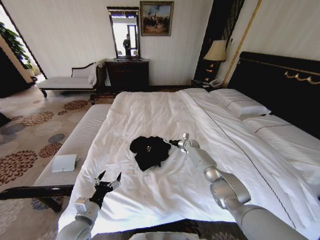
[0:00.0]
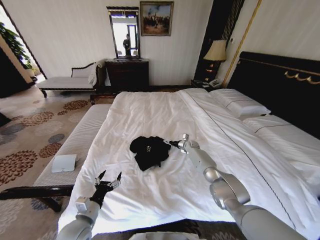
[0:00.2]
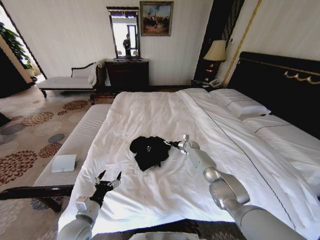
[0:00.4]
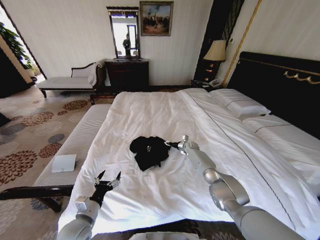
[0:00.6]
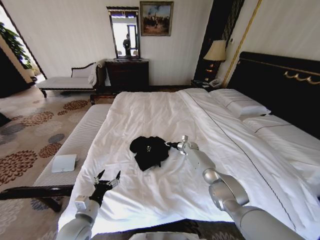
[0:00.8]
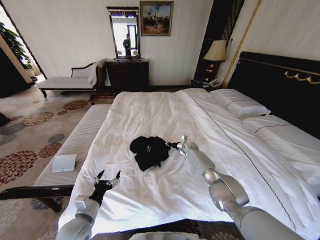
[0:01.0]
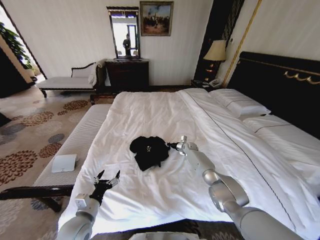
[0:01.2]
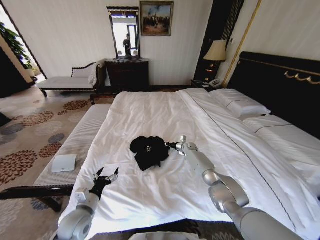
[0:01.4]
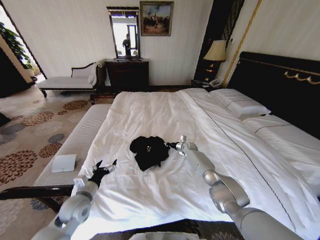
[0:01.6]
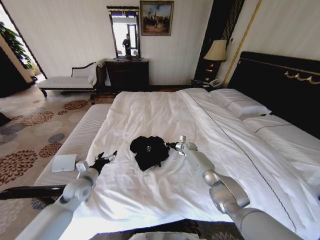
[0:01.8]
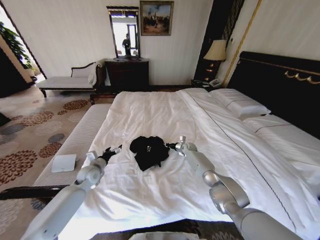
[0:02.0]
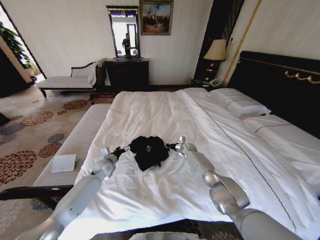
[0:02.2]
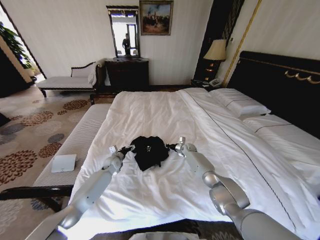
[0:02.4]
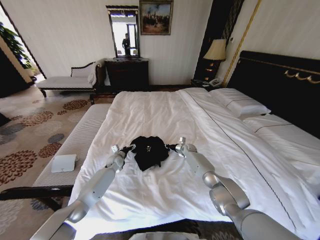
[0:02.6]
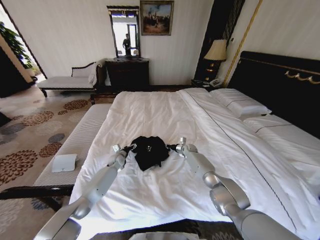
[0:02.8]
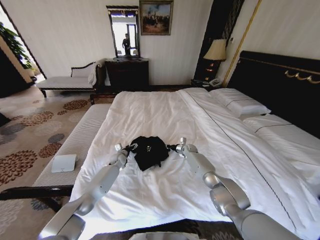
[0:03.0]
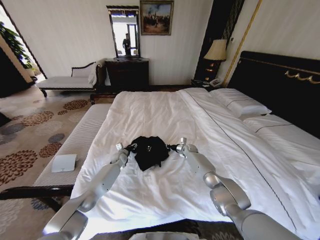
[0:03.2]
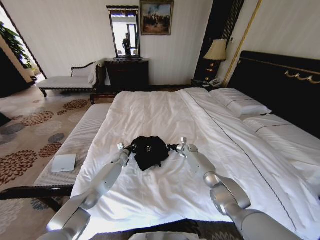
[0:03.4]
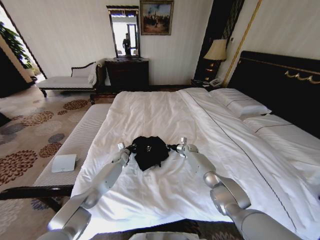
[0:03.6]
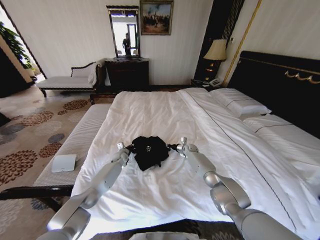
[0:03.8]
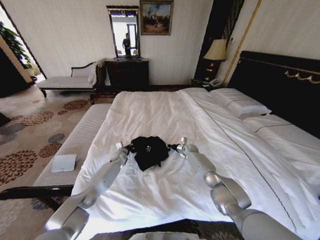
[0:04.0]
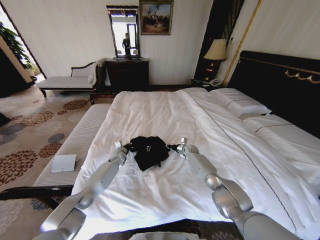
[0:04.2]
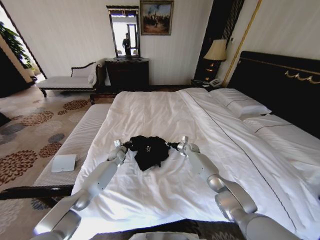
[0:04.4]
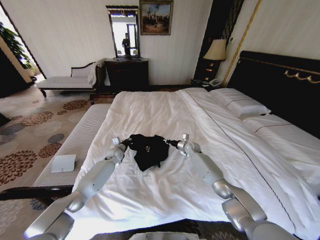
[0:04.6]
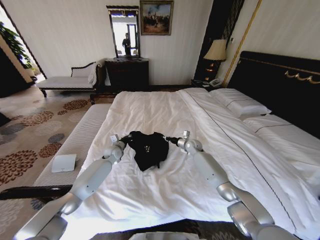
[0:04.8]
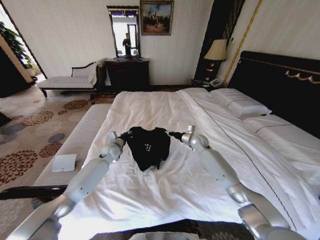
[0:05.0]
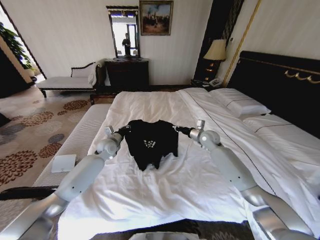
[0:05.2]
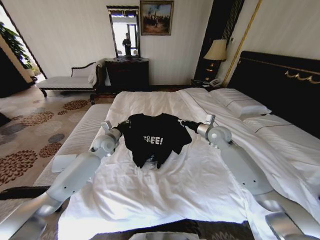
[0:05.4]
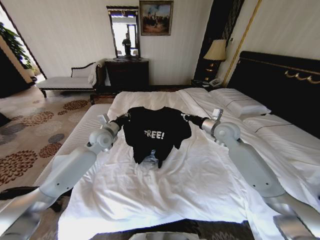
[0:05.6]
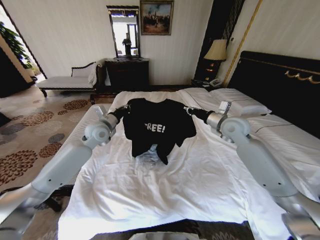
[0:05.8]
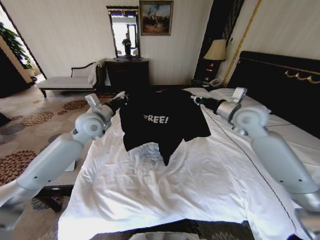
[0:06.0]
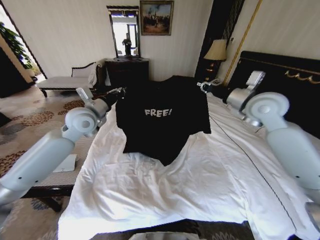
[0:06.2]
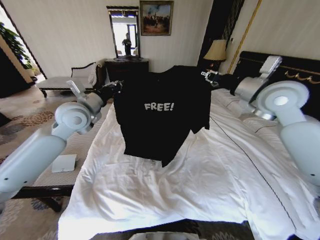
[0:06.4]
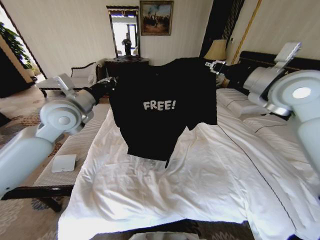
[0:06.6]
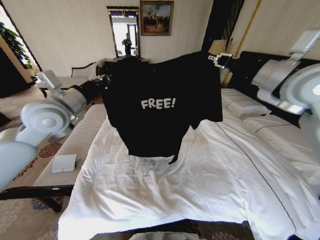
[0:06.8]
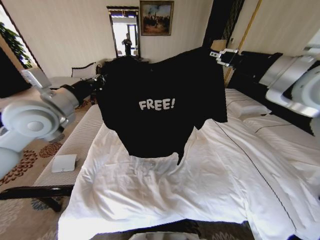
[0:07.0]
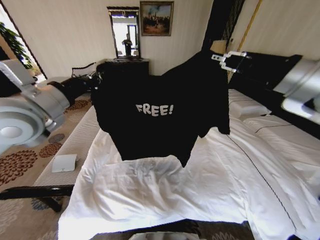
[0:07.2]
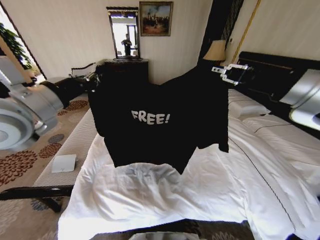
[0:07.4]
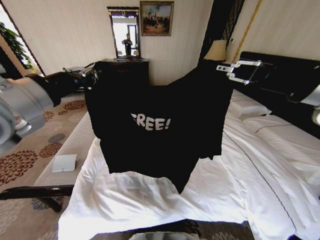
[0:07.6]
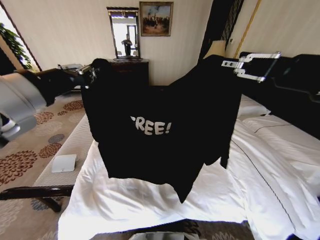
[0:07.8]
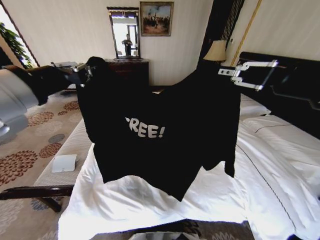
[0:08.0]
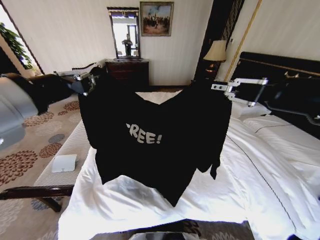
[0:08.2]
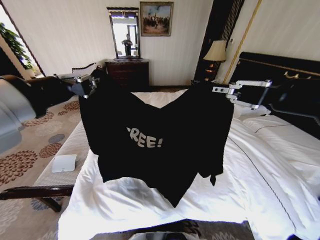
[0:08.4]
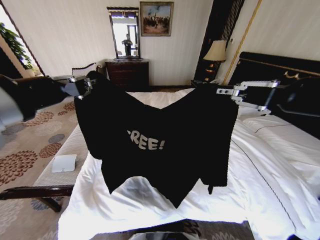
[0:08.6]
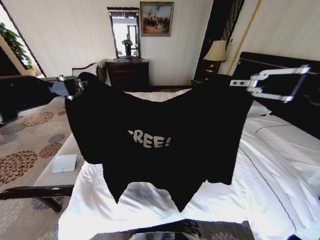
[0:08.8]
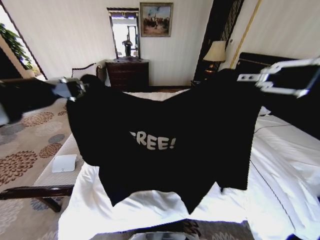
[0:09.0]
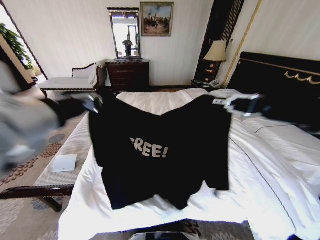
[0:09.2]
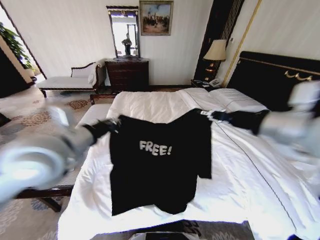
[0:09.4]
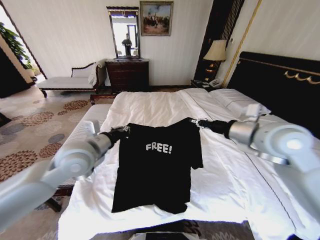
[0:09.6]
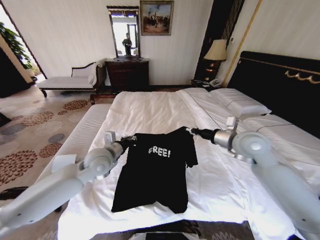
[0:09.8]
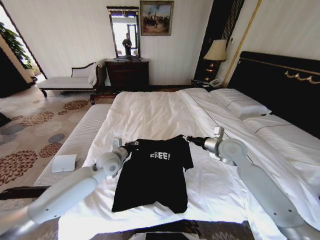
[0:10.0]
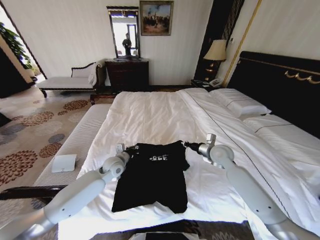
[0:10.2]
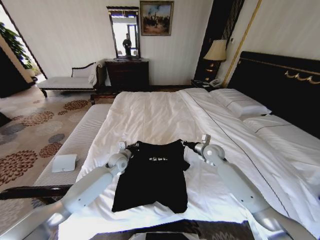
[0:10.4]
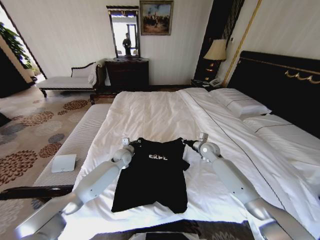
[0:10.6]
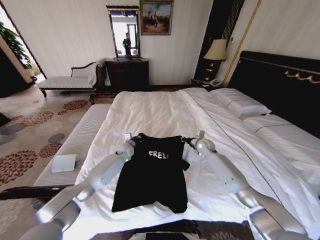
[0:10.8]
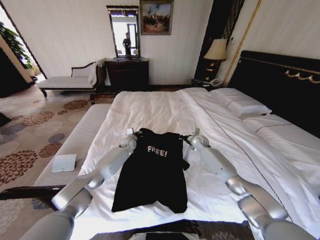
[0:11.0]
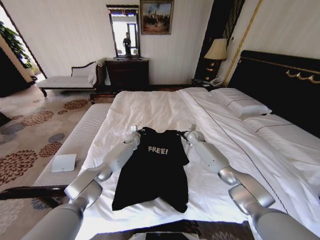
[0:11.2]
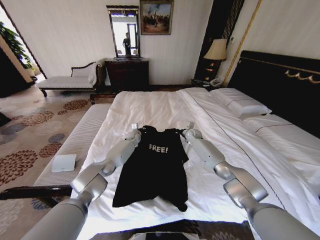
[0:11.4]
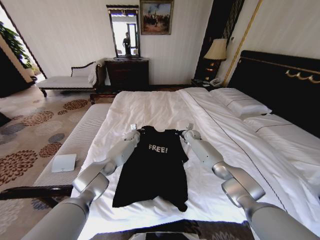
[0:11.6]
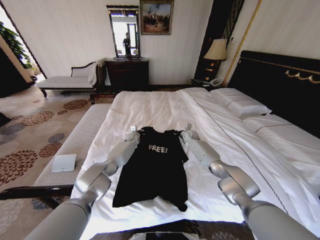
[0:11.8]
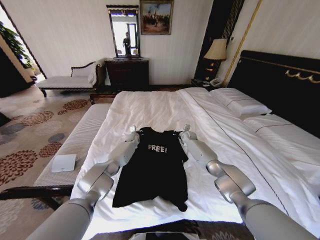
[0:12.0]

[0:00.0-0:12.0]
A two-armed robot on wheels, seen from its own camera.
Task of the whole recording: Fold the clothes on the bed.
0:00.0 to 0:01.6: The right gripper closes, while the left gripper is displaced forward by roughly 10 cm.
0:01.6 to 0:03.0: The left gripper moves forward, roughly 30 cm.
0:03.0 to 0:04.4: The left gripper closes up.
0:04.4 to 0:06.0: The right gripper travels upward and backward by some 40 cm; the left gripper shifts some 30 cm upward.
0:06.0 to 0:07.6: The grippers both shift backward and upward by about 25 cm.
0:07.6 to 0:09.0: The left gripper shifts some 10 cm backward; the right gripper shifts roughly 10 cm backward and upward.
0:09.0 to 0:10.4: The grippers both shift downward and forward by some 50 cm.
0:10.4 to 0:12.0: Both grippers move forward, approximately 20 cm.

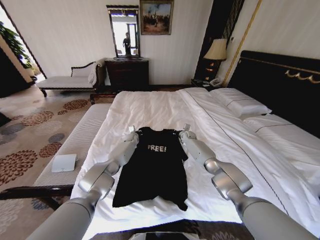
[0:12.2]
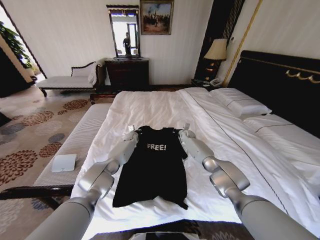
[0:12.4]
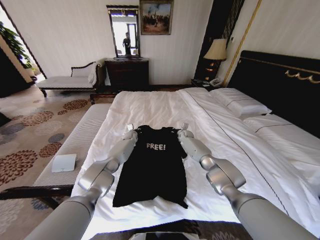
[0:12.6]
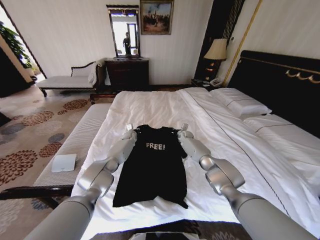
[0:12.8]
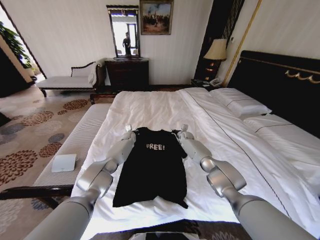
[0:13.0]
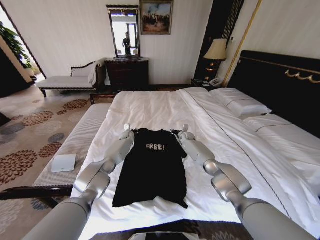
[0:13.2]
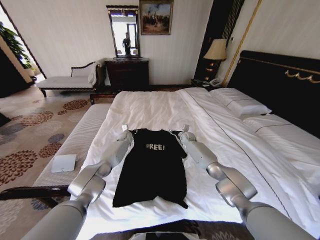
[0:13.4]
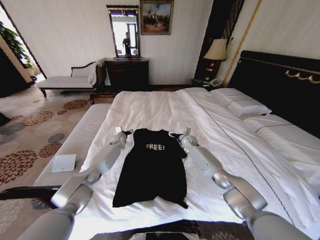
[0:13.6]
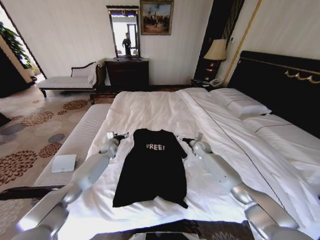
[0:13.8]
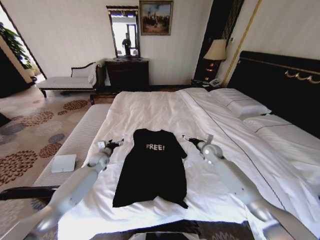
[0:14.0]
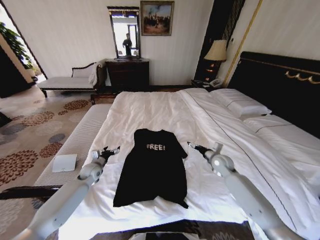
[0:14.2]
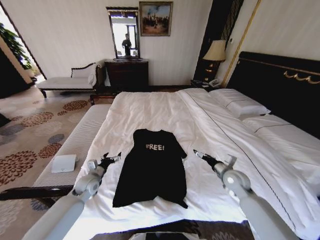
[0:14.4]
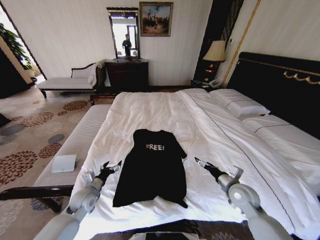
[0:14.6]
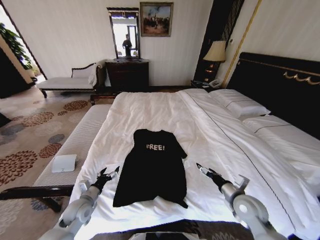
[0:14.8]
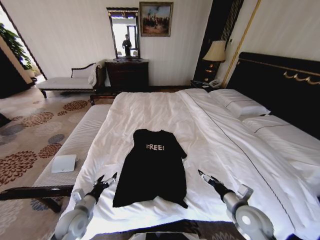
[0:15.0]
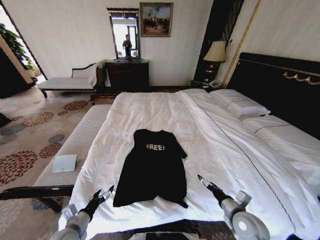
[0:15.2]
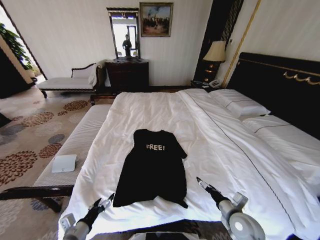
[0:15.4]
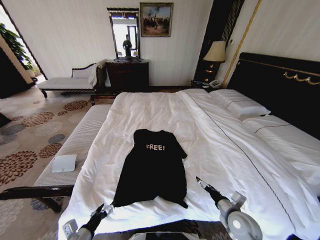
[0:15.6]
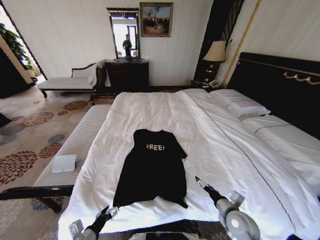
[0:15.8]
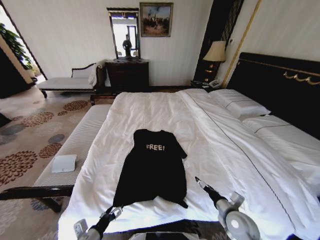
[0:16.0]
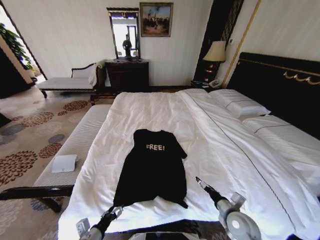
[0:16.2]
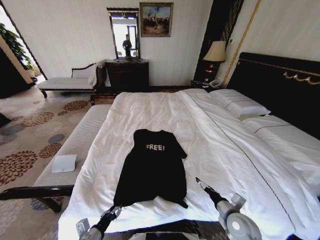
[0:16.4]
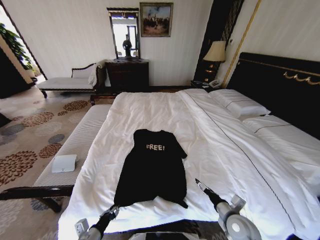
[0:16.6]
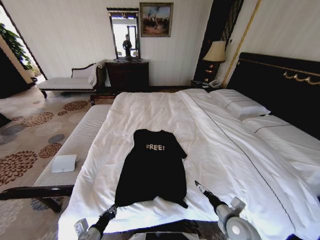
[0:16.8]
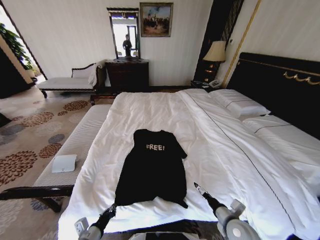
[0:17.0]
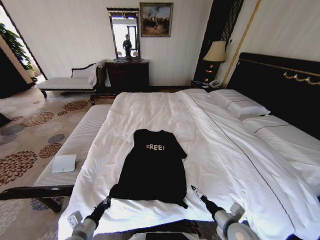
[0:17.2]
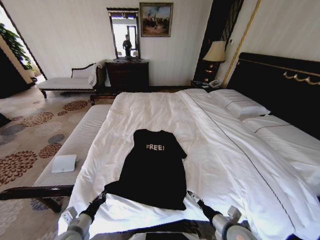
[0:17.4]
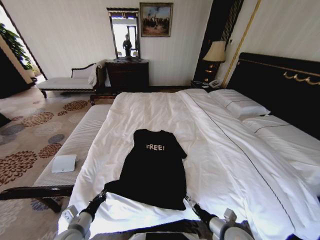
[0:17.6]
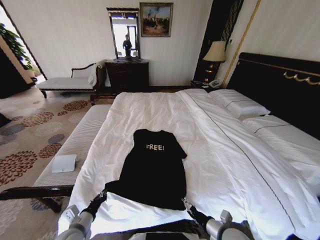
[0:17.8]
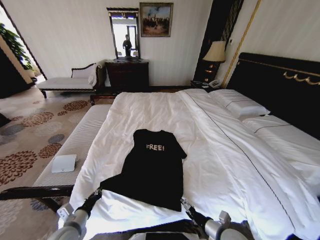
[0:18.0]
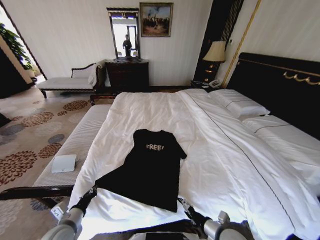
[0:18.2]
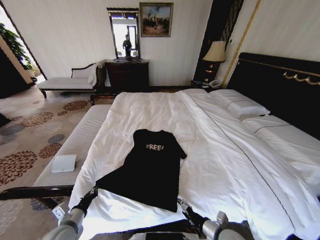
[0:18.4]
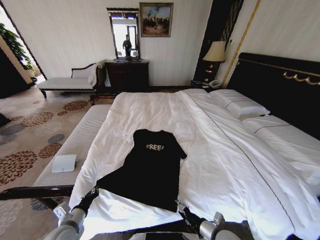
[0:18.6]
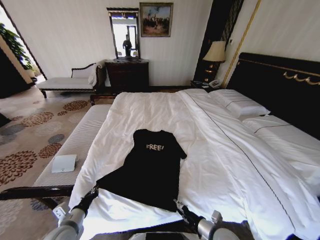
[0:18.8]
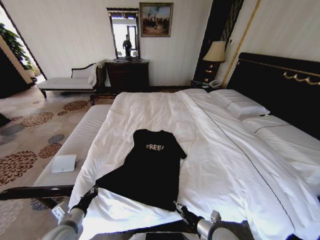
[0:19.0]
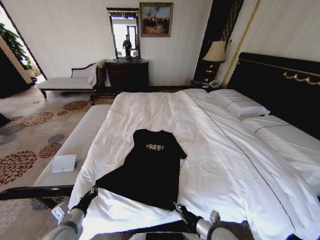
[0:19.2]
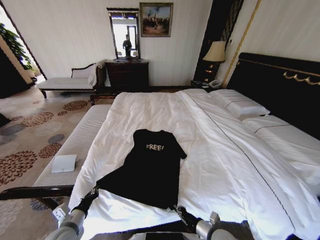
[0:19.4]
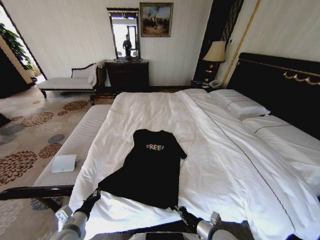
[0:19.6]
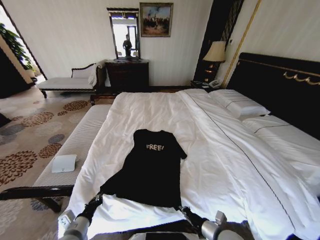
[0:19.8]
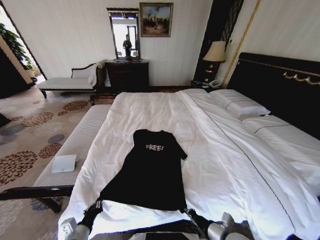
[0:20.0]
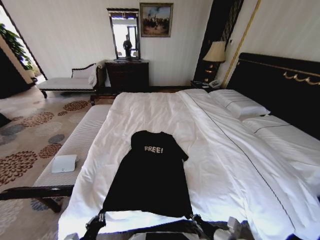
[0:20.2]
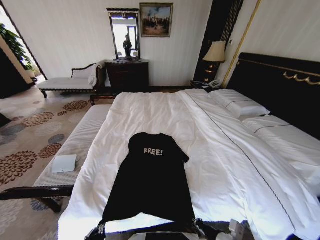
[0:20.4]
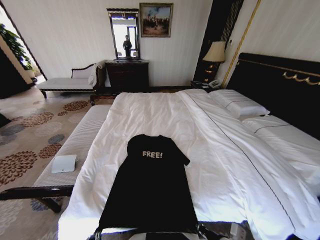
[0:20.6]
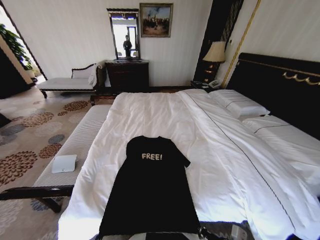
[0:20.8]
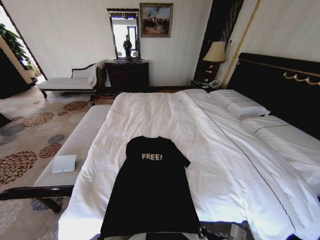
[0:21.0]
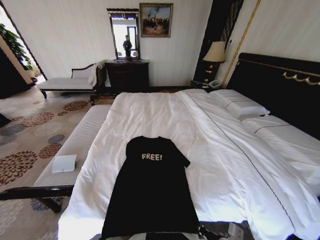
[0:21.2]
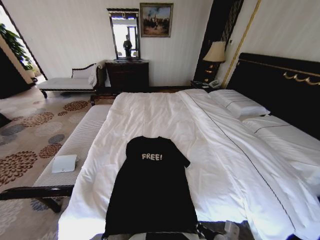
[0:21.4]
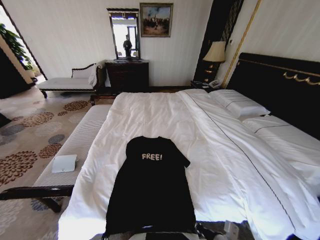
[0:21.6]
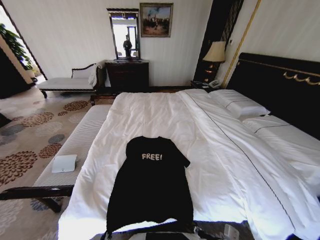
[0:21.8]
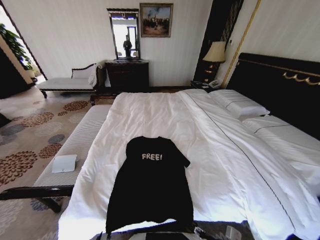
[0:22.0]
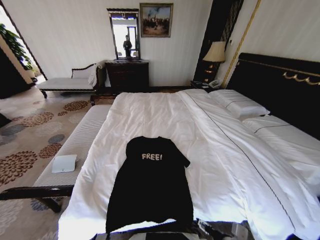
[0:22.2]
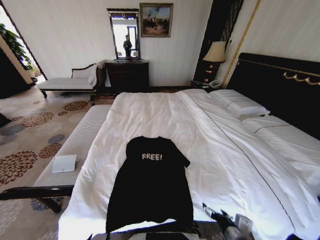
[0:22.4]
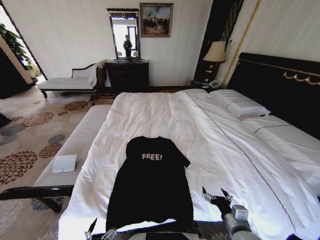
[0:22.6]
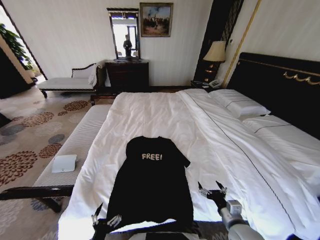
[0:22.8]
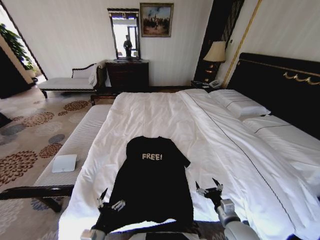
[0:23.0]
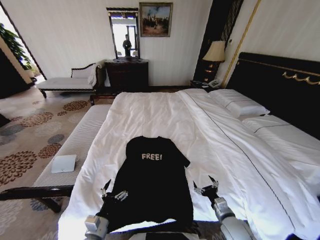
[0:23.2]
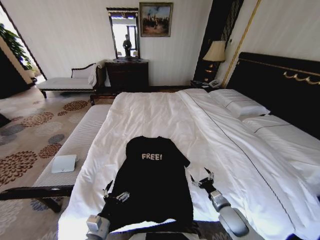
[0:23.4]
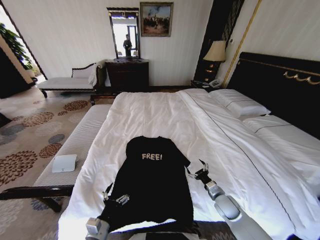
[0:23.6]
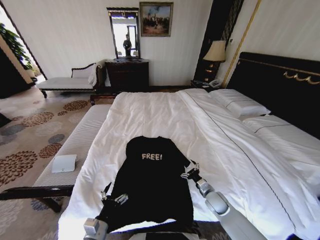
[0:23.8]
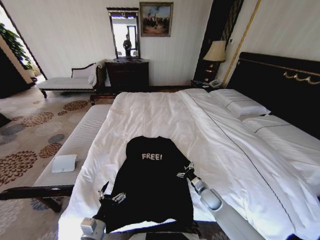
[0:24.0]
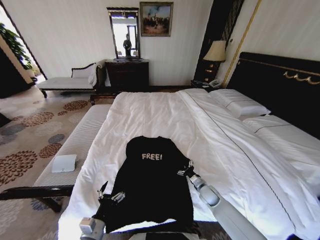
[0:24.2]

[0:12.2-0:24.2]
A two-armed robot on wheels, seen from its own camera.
Task of the whole recording: Fold the clothes on the bed.
0:12.2 to 0:13.8: The left gripper heads to the left and backward, covering approximately 15 cm, and opens up, while the right gripper shifts some 10 cm backward and to the right, and opens its fingers.
0:13.8 to 0:15.2: The two grippers go about 40 cm backward.
0:15.2 to 0:16.6: The left gripper changes place by roughly 5 cm, and closes its fingers.
0:16.6 to 0:18.2: The left gripper goes roughly 10 cm to the left and forward, while the right gripper moves some 5 cm.
0:18.2 to 0:19.8: The right gripper closes.
0:19.8 to 0:21.2: The left gripper shifts about 15 cm backward and to the right, while the right gripper shifts by some 5 cm.
0:21.2 to 0:22.6: The right gripper opens. Meanwhile the left gripper opens.
0:22.6 to 0:24.2: The left gripper moves forward, some 15 cm. The right gripper is displaced forward and downward by about 25 cm.
